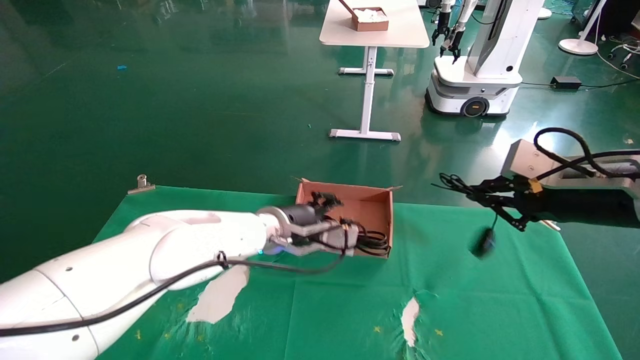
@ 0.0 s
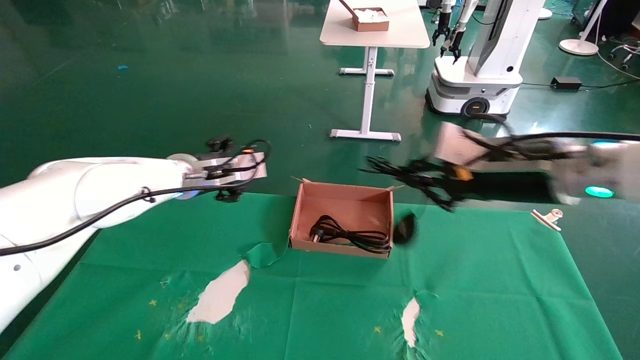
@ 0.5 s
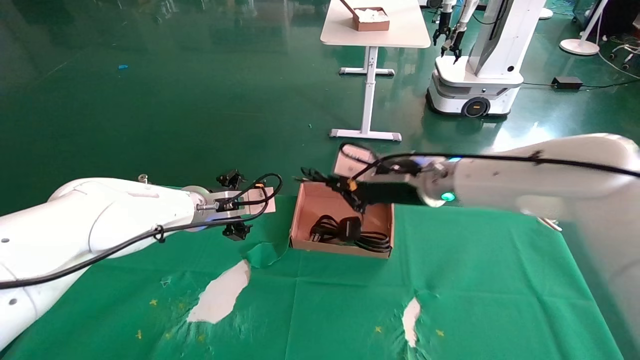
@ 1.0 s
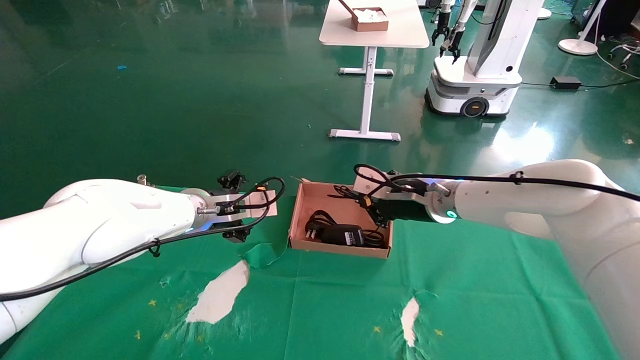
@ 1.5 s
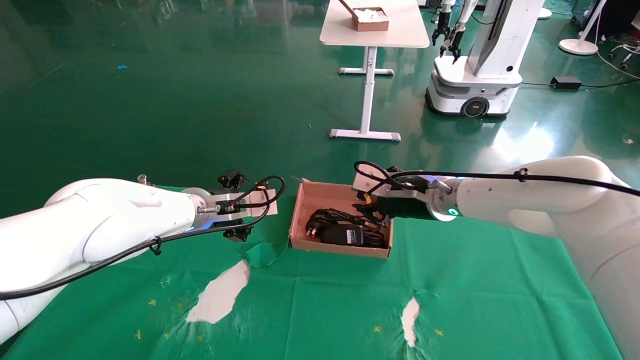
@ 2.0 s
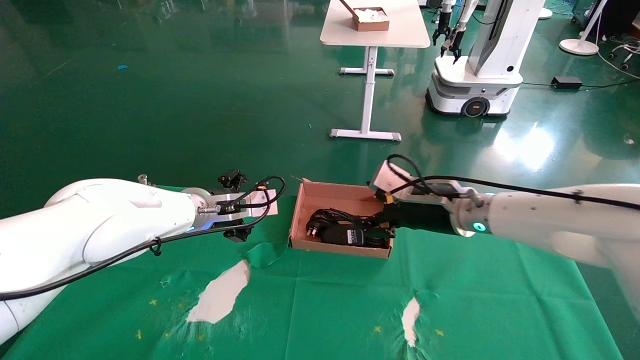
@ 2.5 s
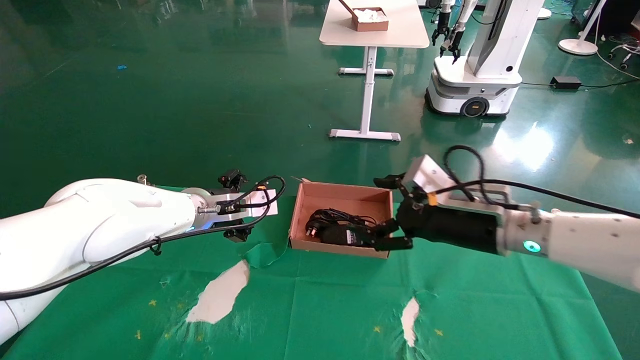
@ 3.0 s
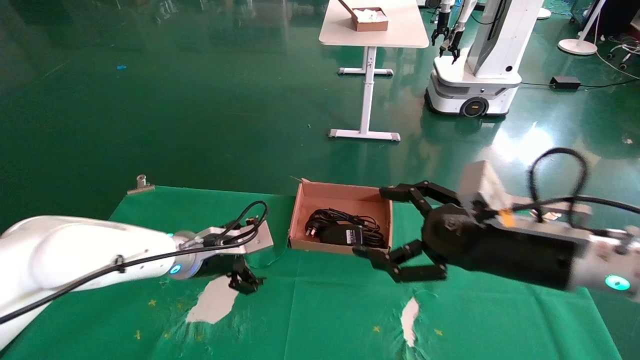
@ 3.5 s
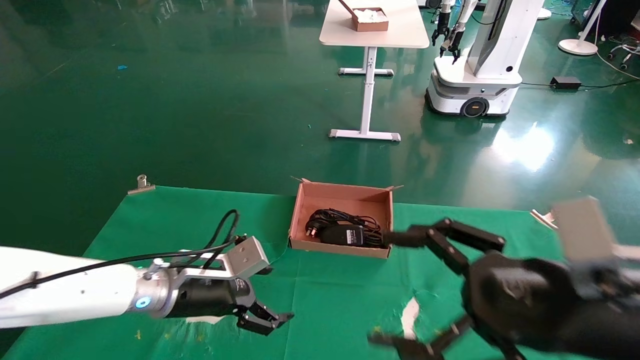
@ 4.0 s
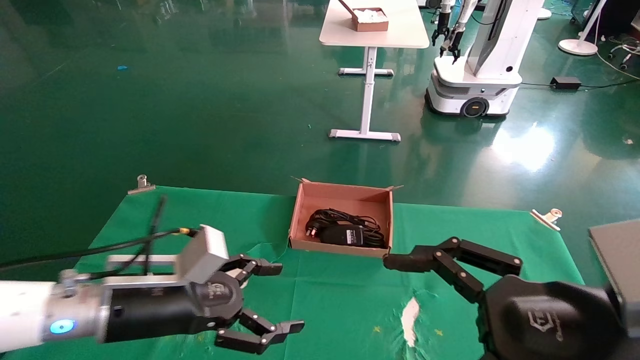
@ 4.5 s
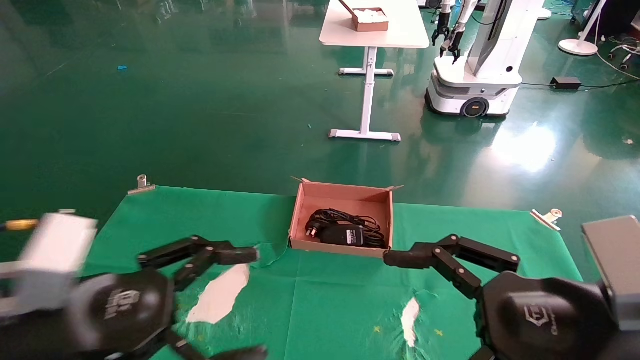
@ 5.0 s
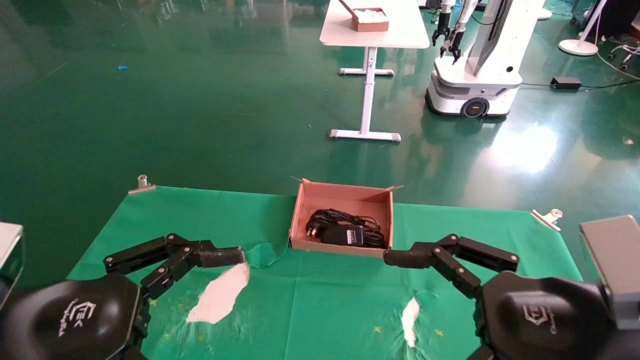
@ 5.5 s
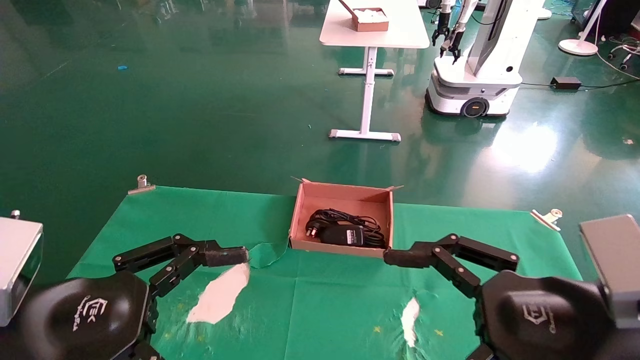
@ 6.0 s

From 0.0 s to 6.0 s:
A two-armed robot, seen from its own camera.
Step, from 0.0 s to 3.5 s: Place the mouse and power cord into the box.
From 0.0 s to 2.0 s: The right gripper heads to the left and forward, covering some 20 cm. Meanwhile the left gripper shifts some 10 cm to the left, and opens up.
From 2.0 s to 4.0 s: The right gripper shifts some 25 cm backward, and opens; the left gripper shifts approximately 15 cm backward and downward.
From 4.0 s to 6.0 s: The left gripper shifts about 20 cm backward and upward.
